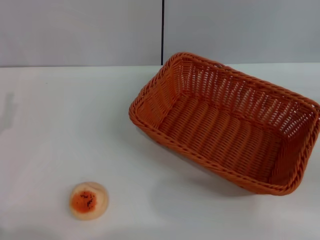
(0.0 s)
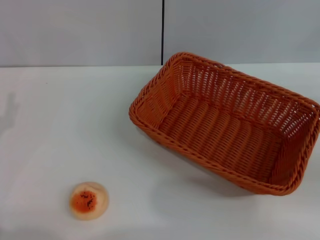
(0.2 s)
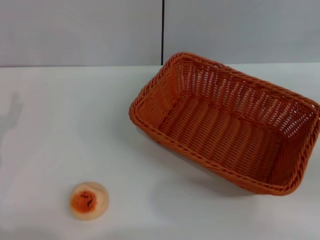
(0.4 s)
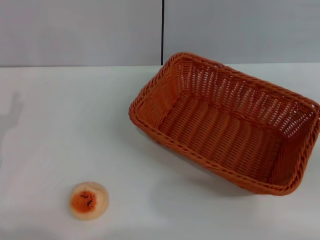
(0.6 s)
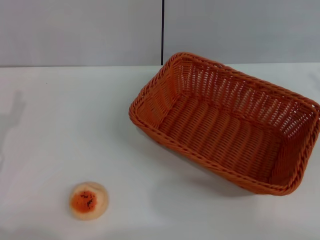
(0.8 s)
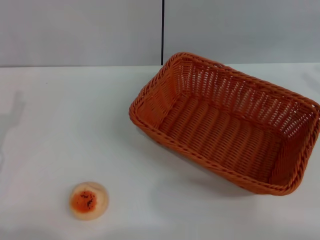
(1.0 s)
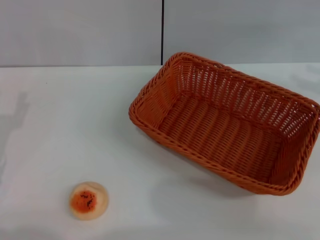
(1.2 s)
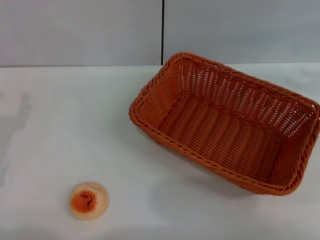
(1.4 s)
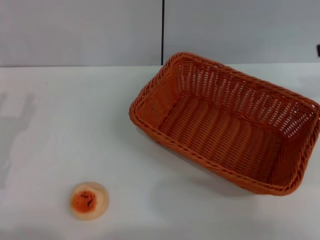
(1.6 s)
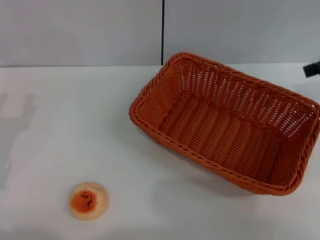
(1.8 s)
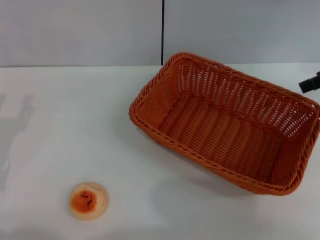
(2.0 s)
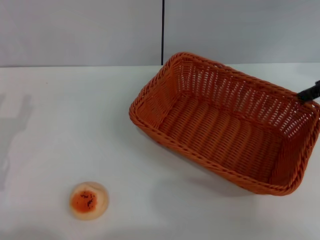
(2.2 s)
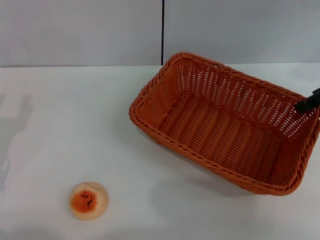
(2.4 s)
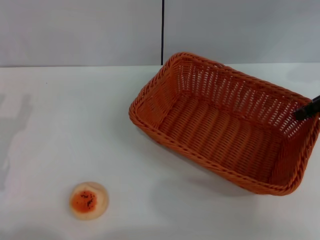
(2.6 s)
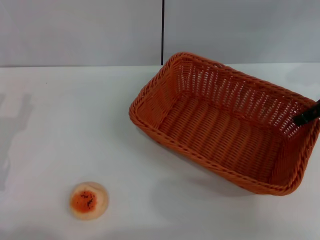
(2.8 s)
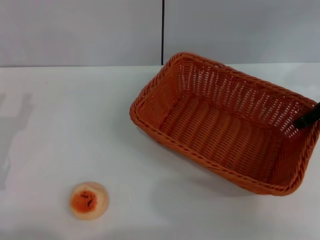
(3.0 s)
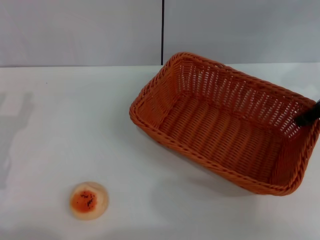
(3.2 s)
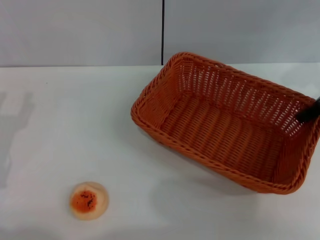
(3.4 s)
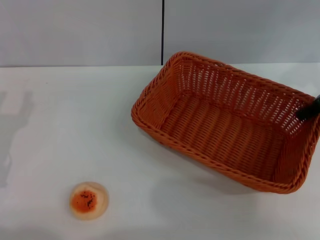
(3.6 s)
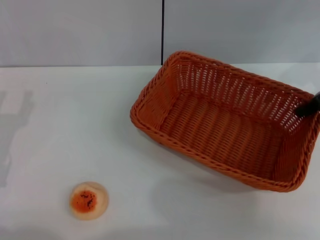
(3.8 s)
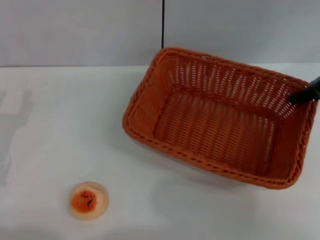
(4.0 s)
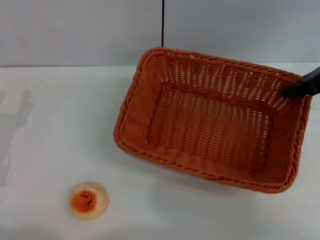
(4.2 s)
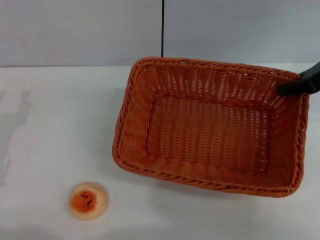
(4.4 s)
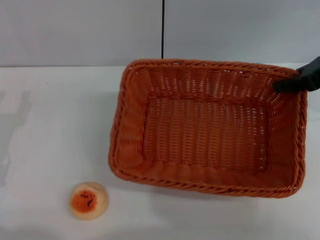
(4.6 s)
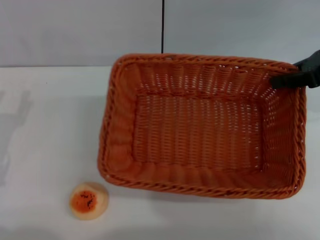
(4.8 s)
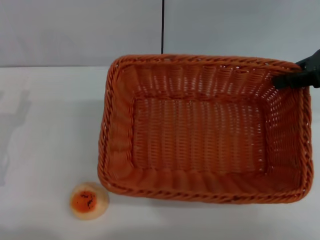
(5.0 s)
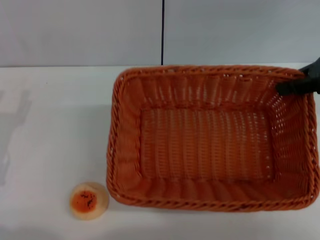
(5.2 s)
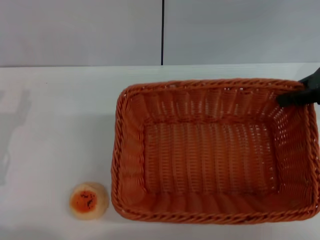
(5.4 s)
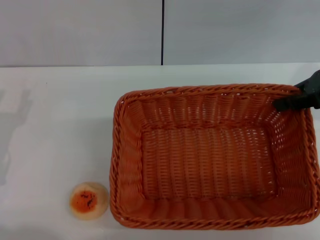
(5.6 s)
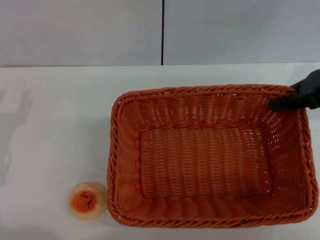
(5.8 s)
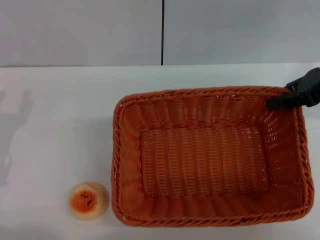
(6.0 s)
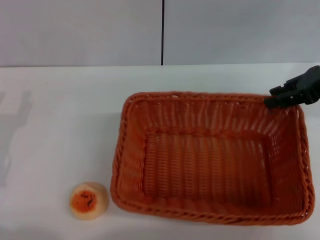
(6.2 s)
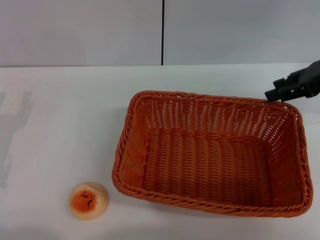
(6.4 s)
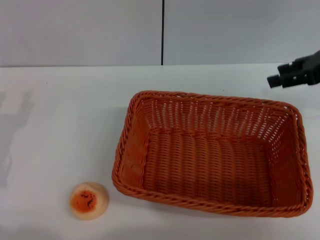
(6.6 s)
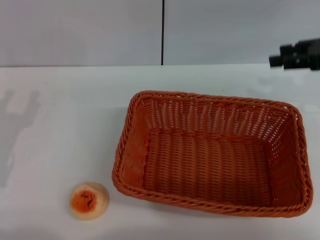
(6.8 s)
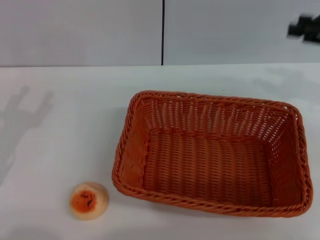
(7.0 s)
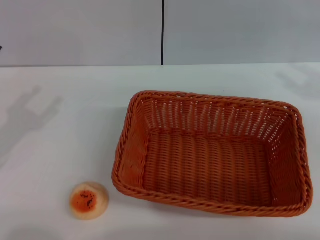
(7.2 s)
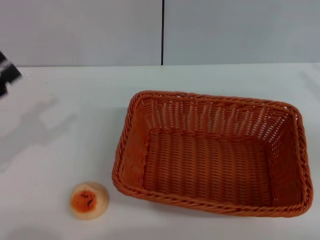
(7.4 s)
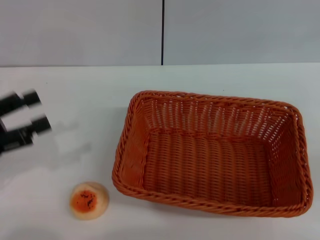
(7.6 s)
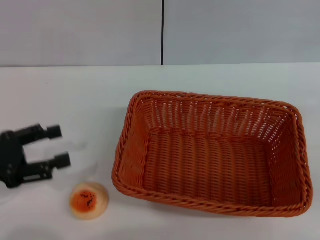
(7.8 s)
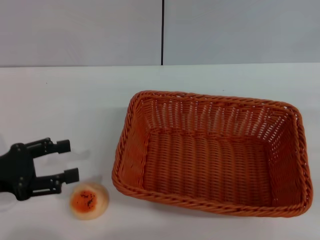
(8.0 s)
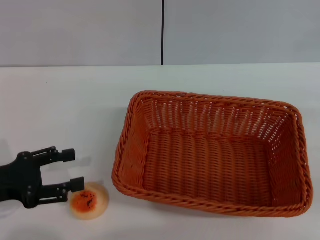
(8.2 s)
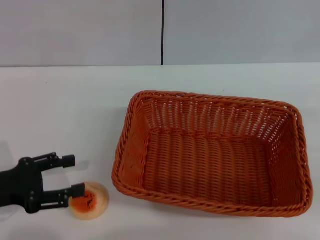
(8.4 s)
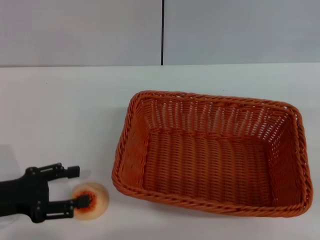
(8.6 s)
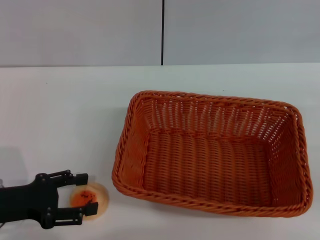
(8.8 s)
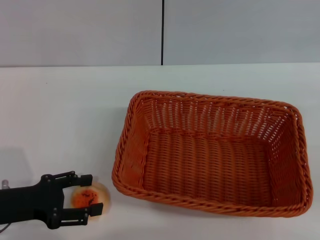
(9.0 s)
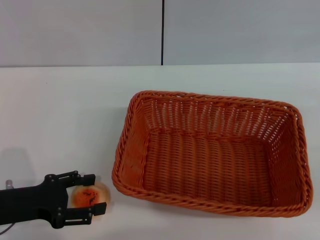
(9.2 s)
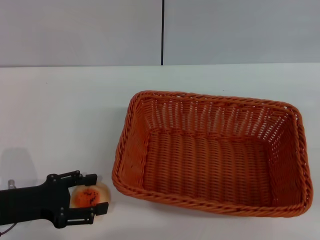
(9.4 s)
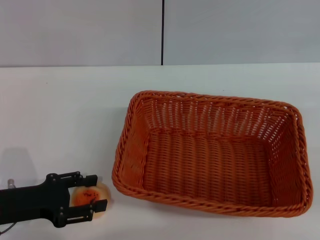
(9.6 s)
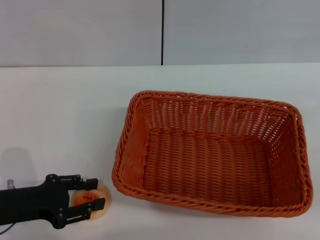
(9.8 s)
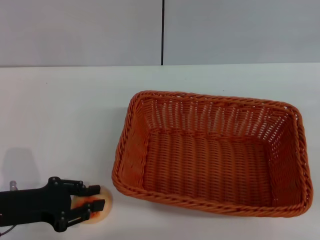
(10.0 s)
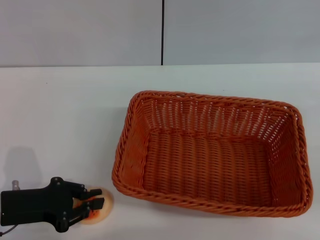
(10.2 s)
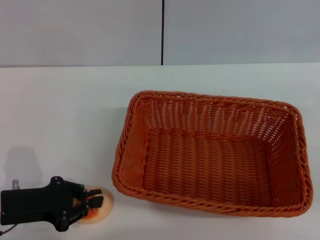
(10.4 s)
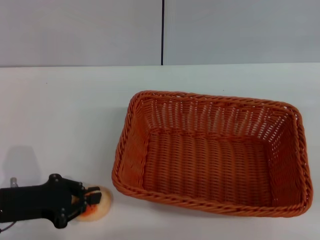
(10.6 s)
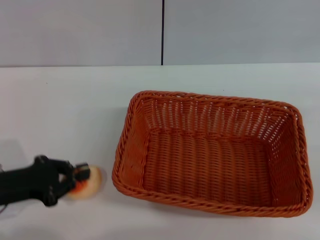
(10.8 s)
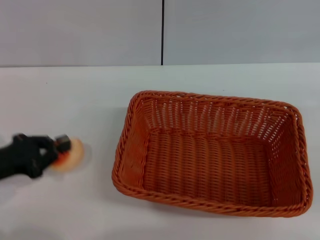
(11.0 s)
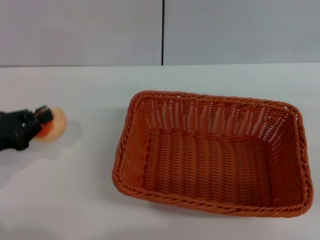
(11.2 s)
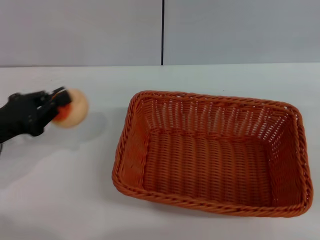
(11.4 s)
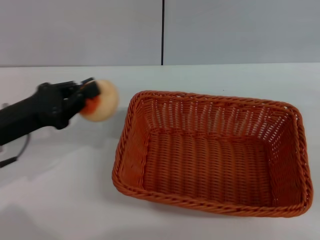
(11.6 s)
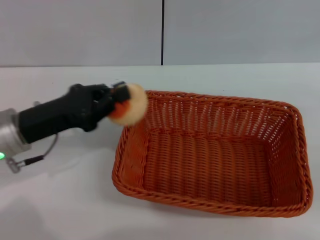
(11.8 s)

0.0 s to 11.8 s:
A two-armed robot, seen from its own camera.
Step, 0.0 to 6.6 s: Move the basket to the center of view with the right gripper.
Step, 6.8 to 11.2 s: Pick up the egg yolk pastry with the left gripper.
3.0 to 4.4 s: The right gripper closes.
6.0 to 7.4 s: The left gripper goes some 5 cm upward, while the right gripper is displaced backward and to the right by approximately 15 cm, and opens its fingers.
7.4 to 8.8 s: The left gripper goes about 10 cm downward and to the right.
8.8 to 10.4 s: The left gripper closes up.
10.4 to 11.8 s: The left gripper heads forward and upward, covering about 10 cm.

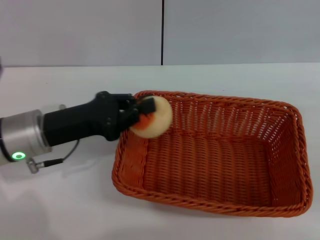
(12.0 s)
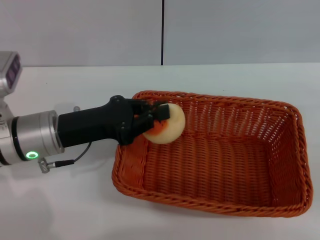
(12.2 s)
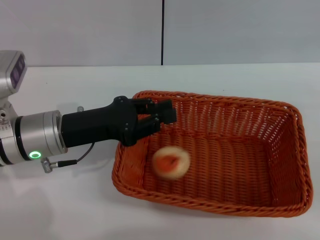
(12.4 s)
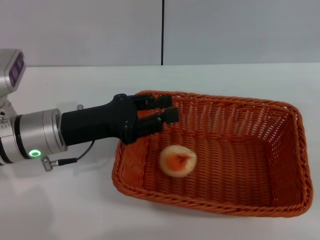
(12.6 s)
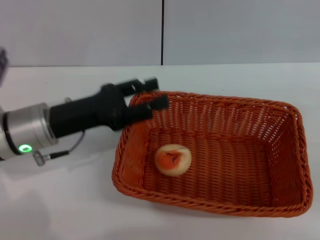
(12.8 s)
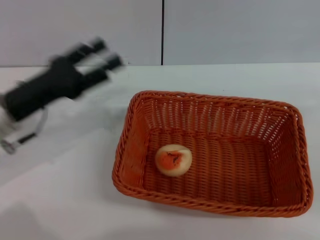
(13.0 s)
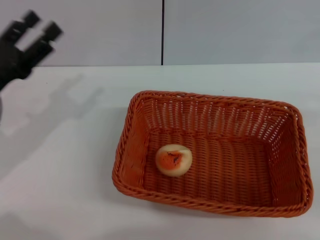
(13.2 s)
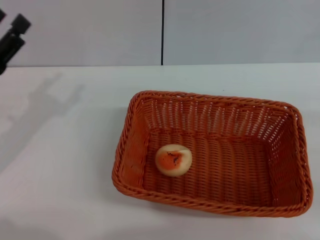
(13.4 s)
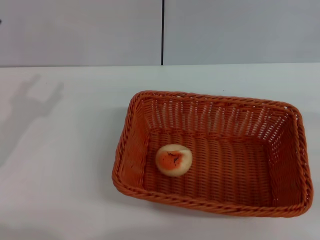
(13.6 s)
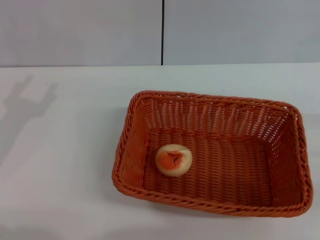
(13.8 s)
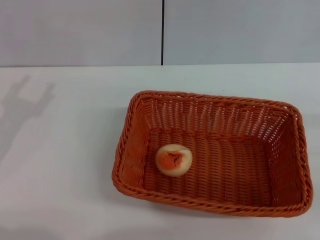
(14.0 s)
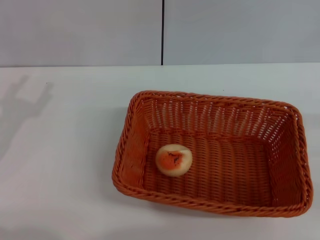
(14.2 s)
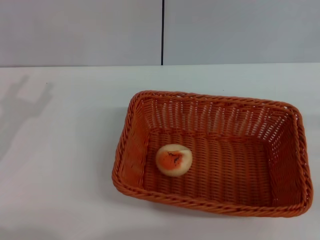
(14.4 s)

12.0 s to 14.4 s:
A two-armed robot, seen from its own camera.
Step, 12.0 to 13.8 s: Place the egg yolk pastry into the basket with the left gripper.
12.0 to 13.2 s: The left gripper is displaced to the left by some 10 cm, and opens its fingers.
13.2 to 14.4 s: There are only small adjustments of the grippers.
